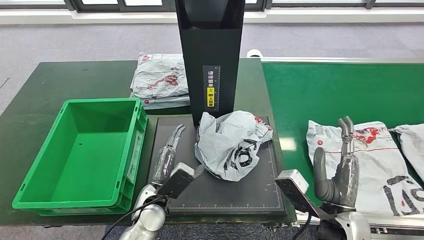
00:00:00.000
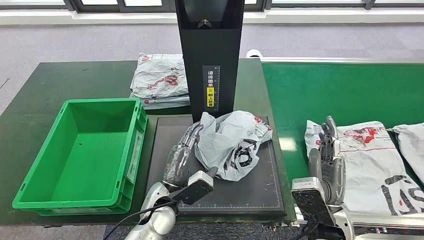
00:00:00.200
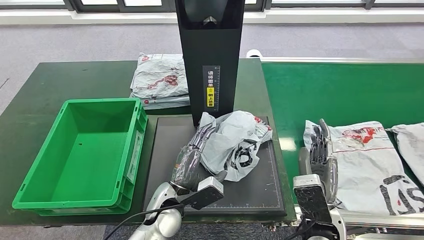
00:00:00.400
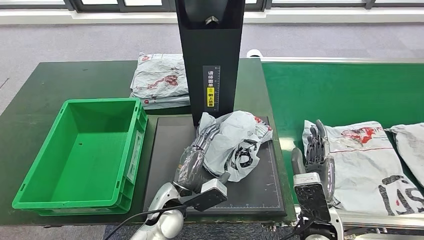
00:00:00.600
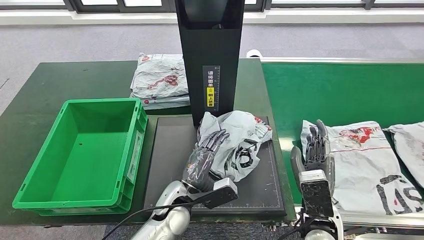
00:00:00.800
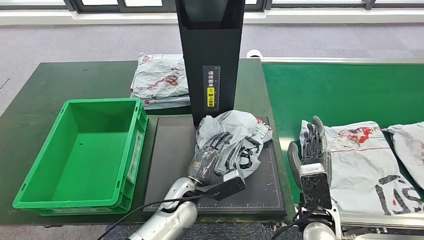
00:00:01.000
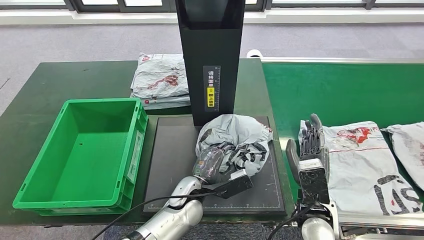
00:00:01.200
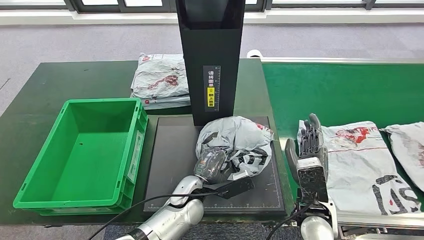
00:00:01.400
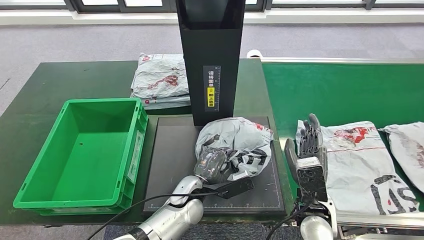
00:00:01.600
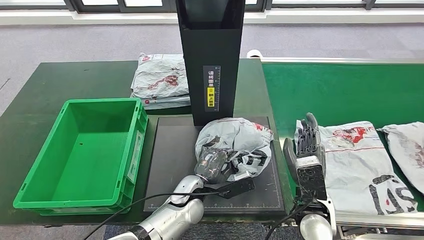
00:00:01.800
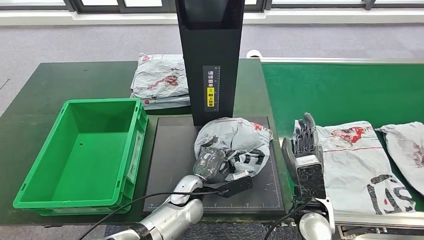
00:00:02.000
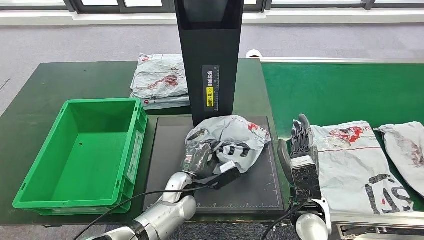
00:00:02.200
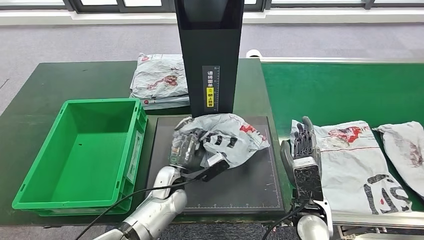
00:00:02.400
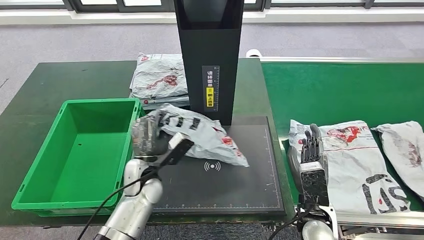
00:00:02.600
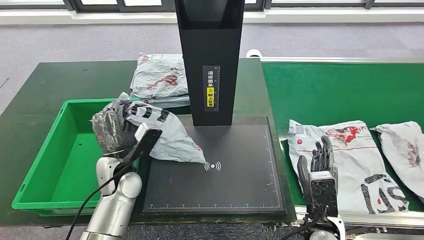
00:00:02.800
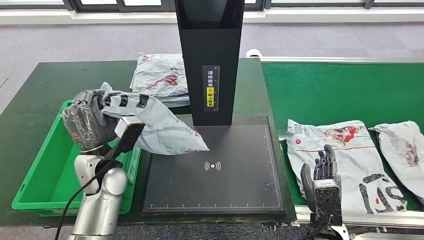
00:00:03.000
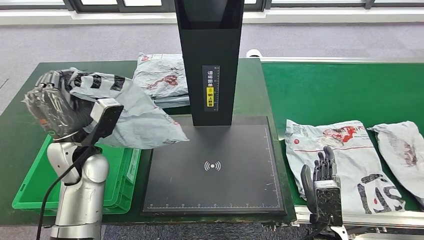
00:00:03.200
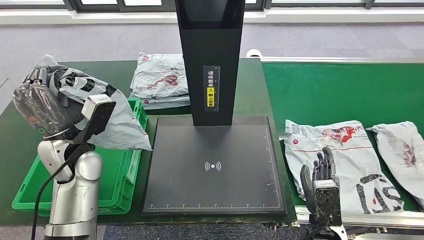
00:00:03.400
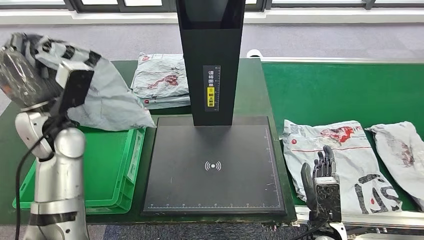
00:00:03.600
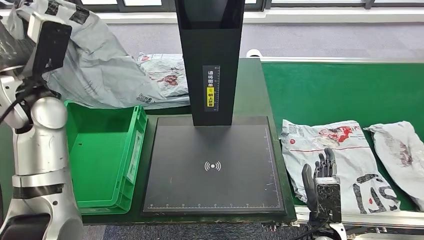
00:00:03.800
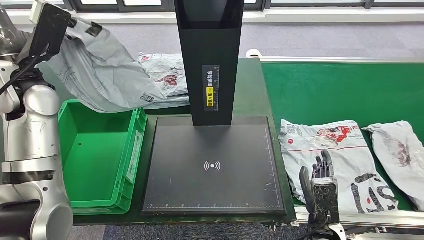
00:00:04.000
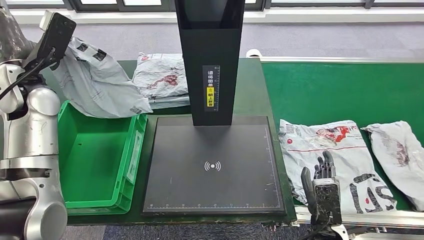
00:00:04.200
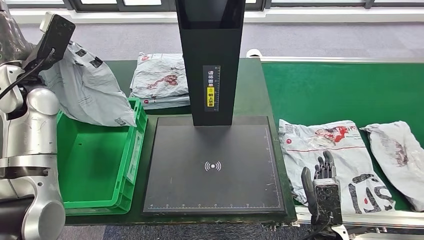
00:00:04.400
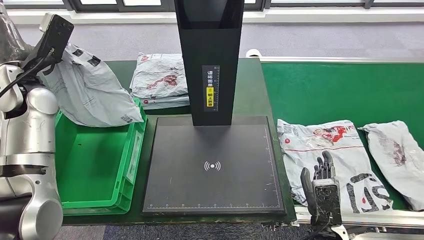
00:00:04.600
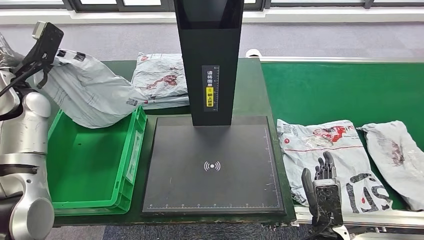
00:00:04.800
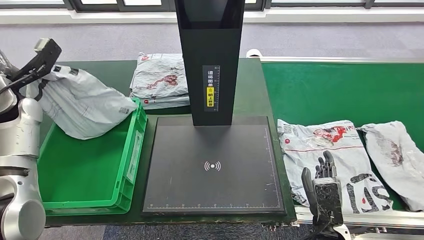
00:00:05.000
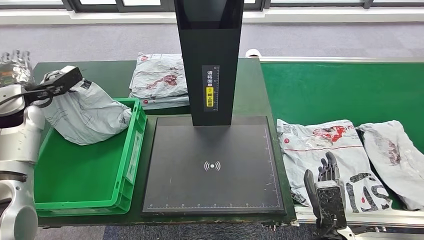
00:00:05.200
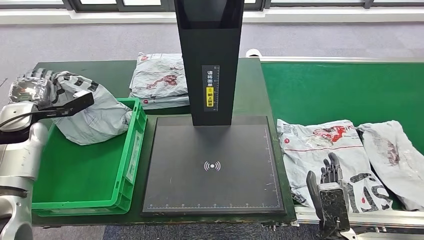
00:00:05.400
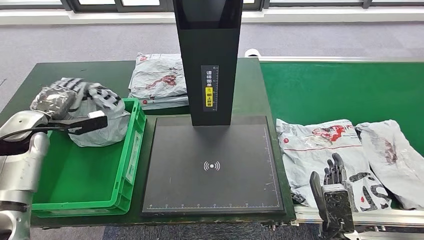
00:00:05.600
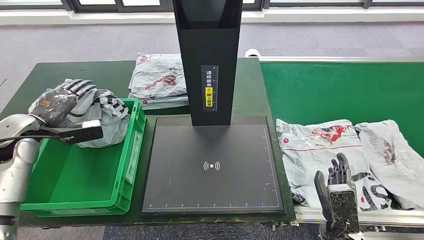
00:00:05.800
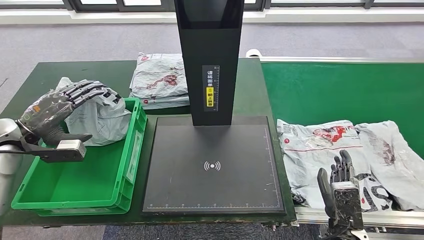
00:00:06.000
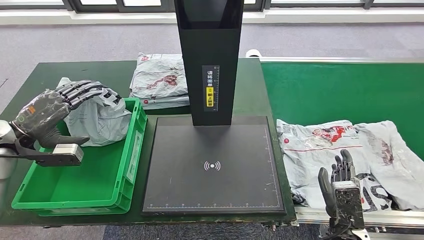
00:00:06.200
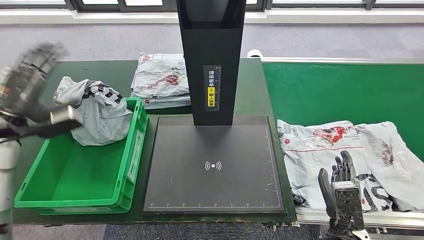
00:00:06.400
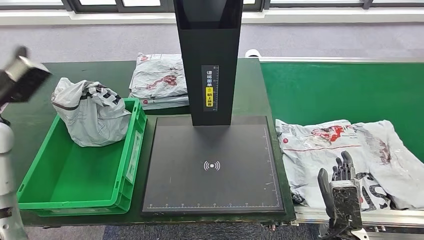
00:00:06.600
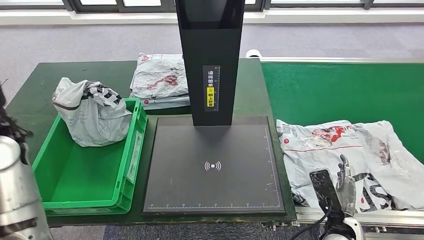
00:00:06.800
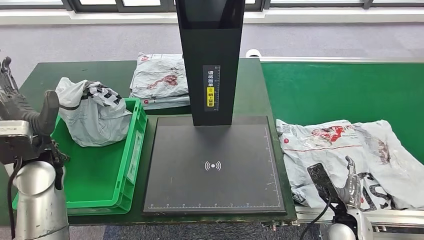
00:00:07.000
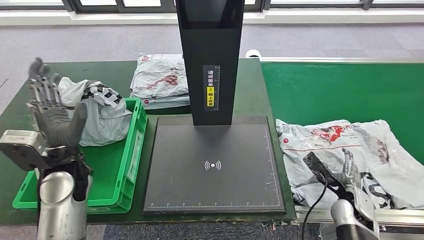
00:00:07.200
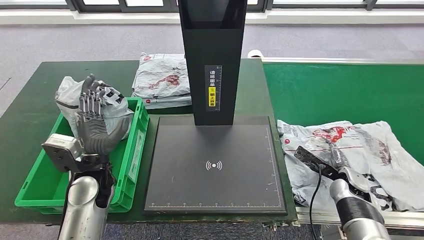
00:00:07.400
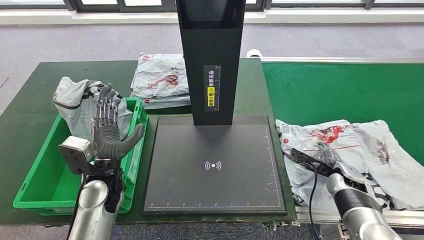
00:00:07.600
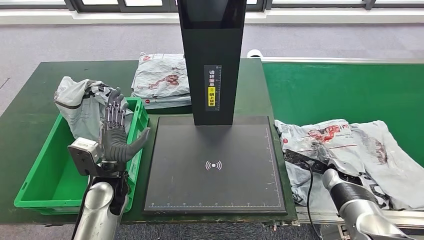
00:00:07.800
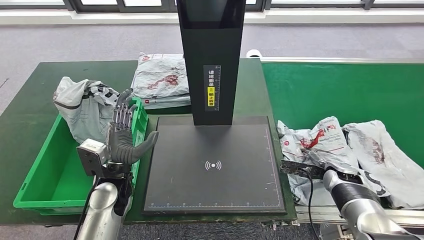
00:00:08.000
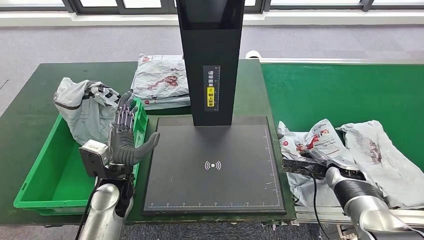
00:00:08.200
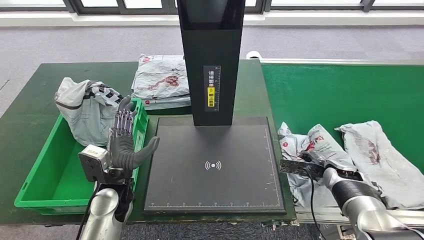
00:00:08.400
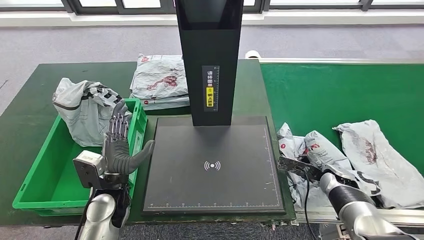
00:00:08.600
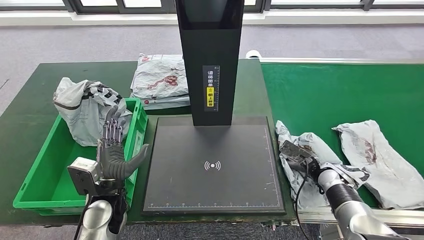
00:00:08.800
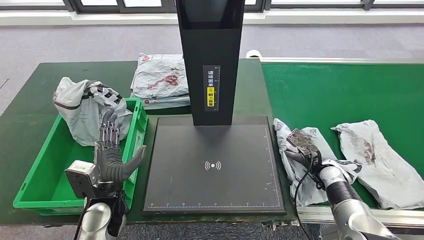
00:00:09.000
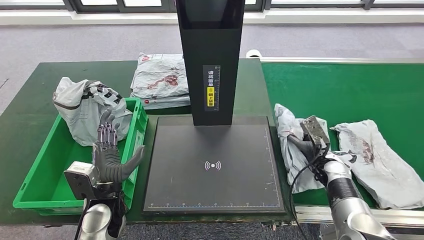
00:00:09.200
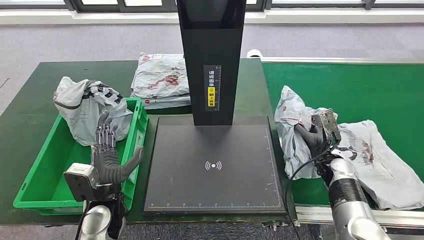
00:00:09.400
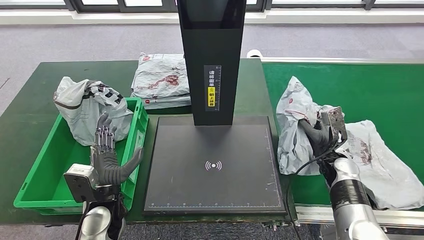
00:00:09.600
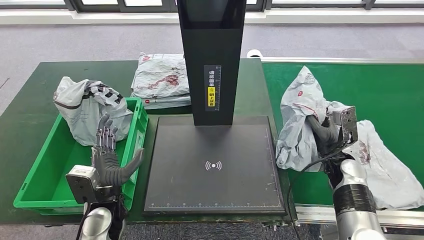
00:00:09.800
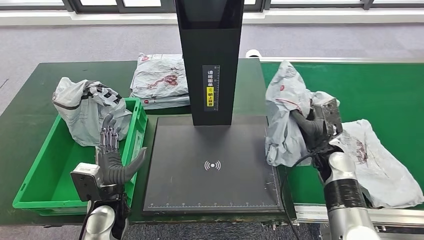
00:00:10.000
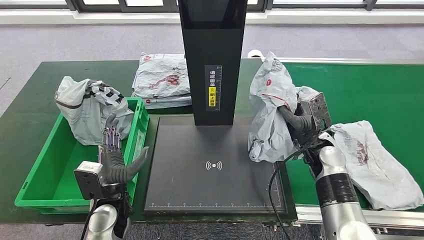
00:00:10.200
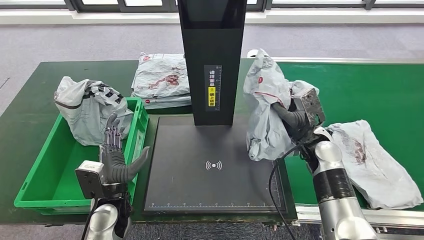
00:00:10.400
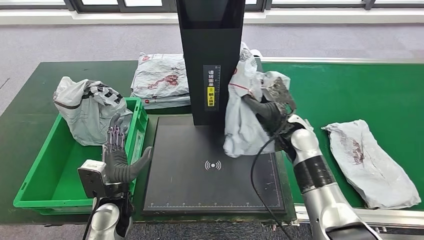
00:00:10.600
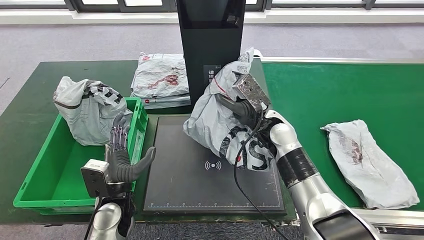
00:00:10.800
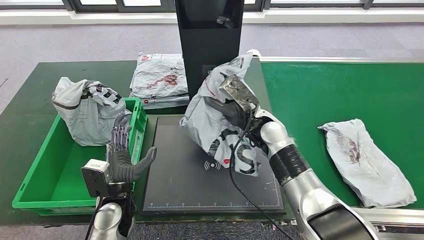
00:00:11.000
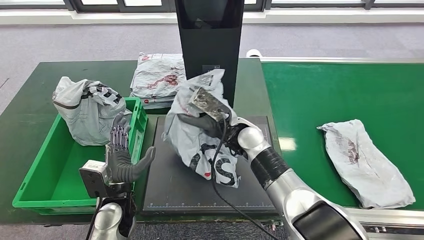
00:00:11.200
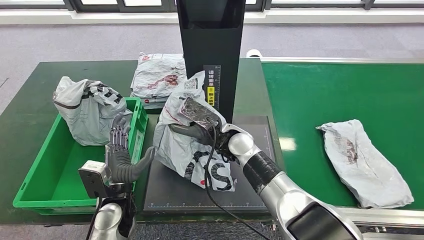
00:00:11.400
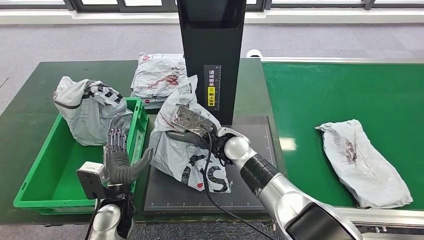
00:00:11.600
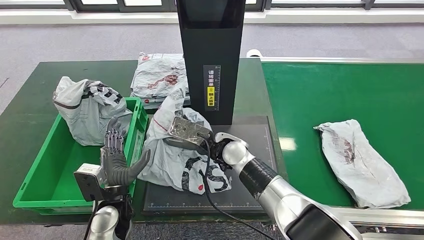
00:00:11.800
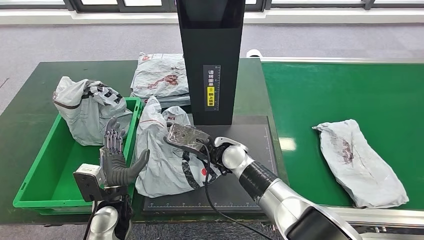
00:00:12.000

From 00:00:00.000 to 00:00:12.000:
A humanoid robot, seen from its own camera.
Step, from 00:00:00.000 to 00:00:02.600: Pick up the parcel from the inbound machine.
Step, from 00:00:02.800 to 00:00:06.200: Put the parcel inside the courier box.
Step, from 00:00:07.400 to 00:00:09.200: Pick up the parcel from the conveyor belt.
From 00:00:06.000 to 00:00:07.600: The right hand moves forward and to the right, some 20 cm. Meanwhile the left hand shifts approximately 25 cm to the right and downward.
From 00:00:07.600 to 00:00:09.000: The left hand ends up some 5 cm from where it was.

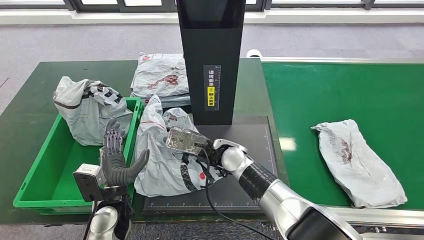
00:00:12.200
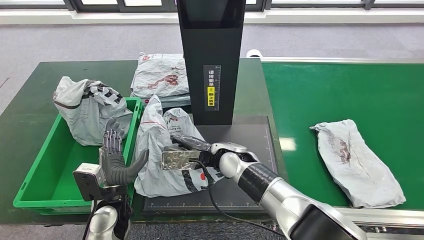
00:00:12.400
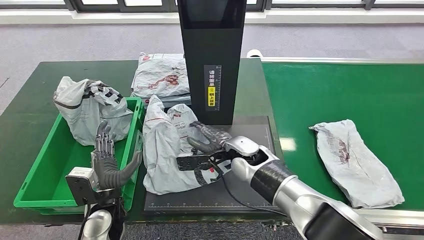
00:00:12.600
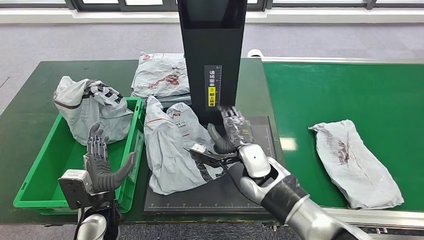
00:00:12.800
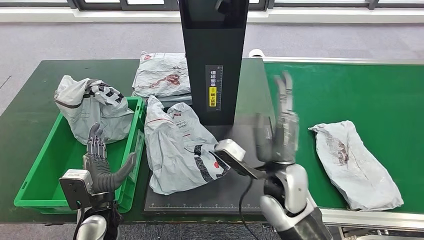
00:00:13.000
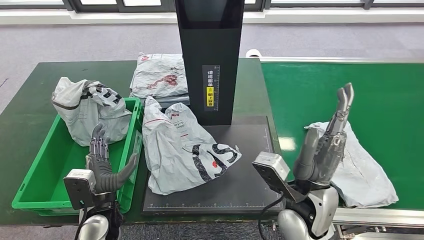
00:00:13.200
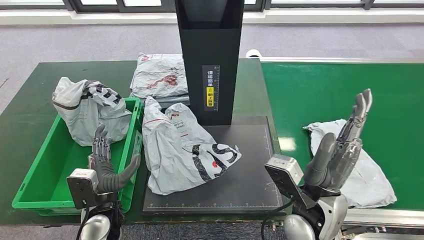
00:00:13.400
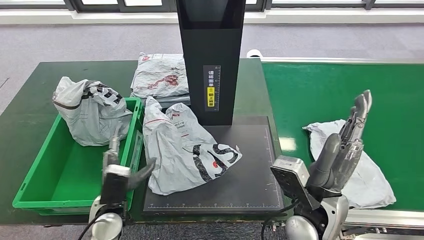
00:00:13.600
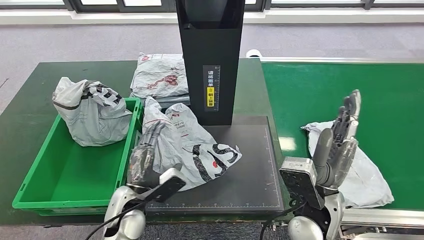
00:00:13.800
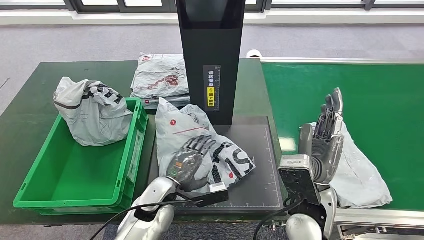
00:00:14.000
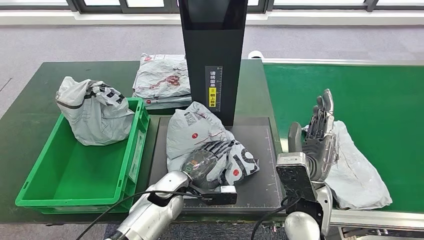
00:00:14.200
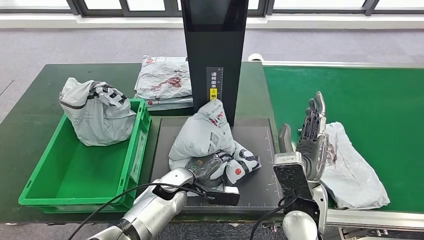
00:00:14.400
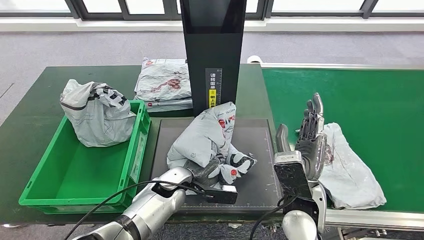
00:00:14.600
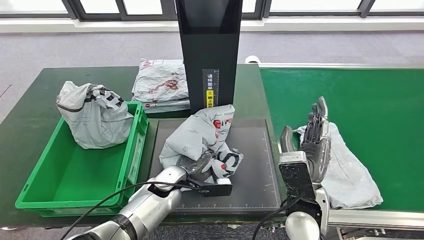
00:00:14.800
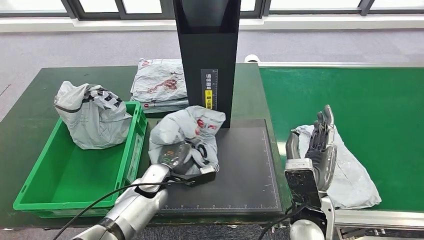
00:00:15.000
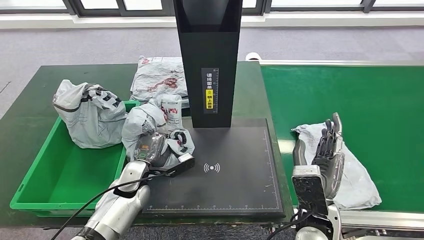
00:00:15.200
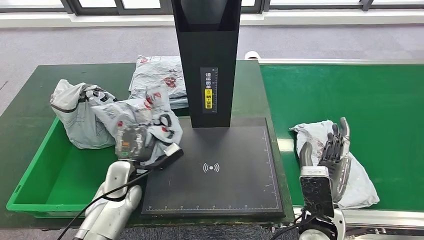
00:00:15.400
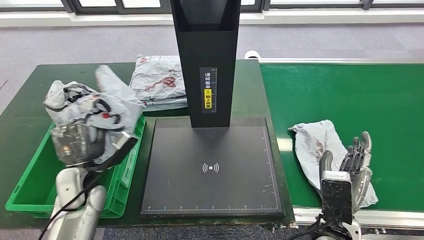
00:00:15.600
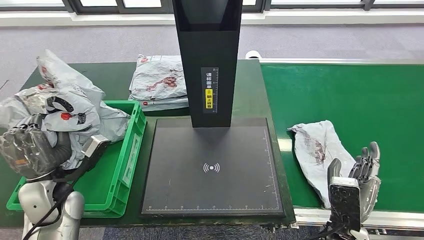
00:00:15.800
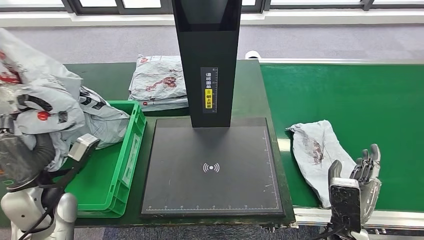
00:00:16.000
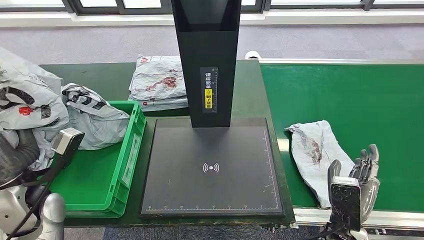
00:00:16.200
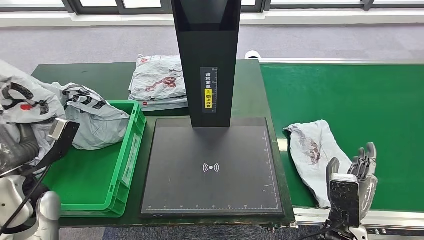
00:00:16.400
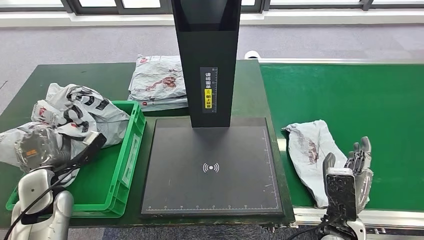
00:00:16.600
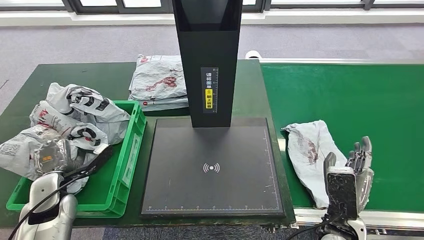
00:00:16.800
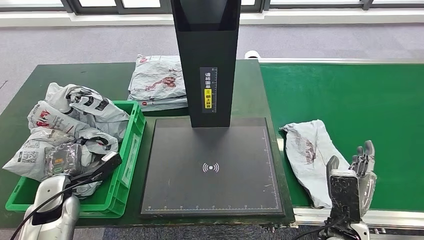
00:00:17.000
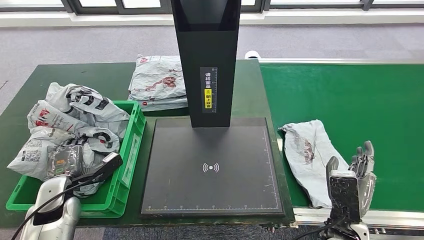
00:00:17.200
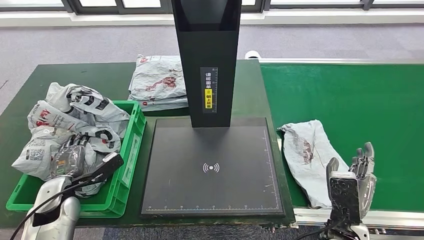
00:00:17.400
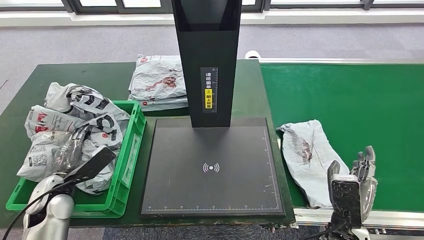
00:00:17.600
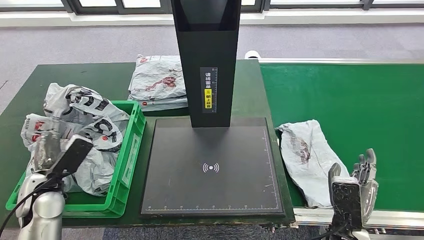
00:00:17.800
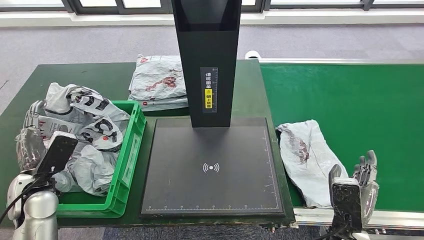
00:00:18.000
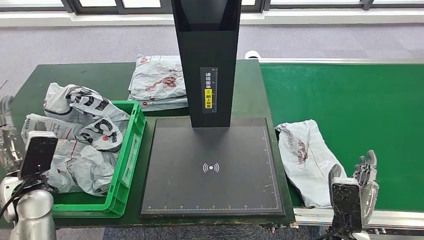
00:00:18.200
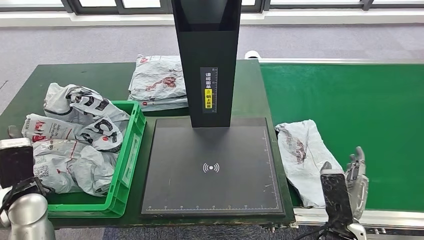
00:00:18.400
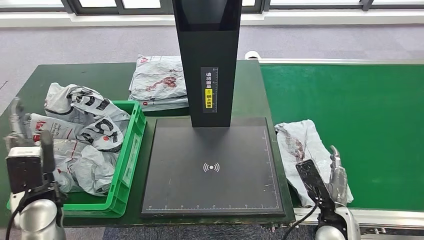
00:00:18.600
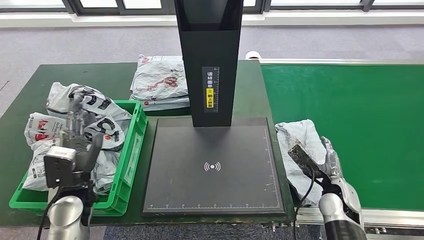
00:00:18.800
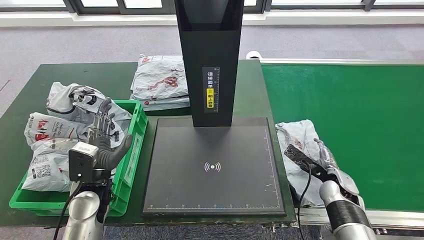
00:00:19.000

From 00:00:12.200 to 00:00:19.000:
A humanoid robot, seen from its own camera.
Step, from 00:00:13.200 to 00:00:15.400: Pick up the parcel from the inbound machine.
Step, from 00:00:15.600 to 00:00:18.000: Place the parcel into the delivery box.
From 00:00:12.200 to 00:00:13.600: The right hand travels backward, to the right and upward by about 20 cm.
From 00:00:16.200 to 00:00:17.600: The left hand heads downward, covering about 10 cm.
